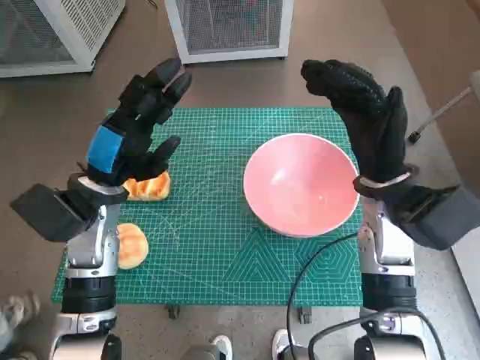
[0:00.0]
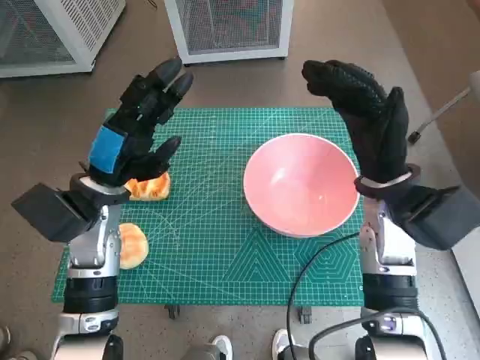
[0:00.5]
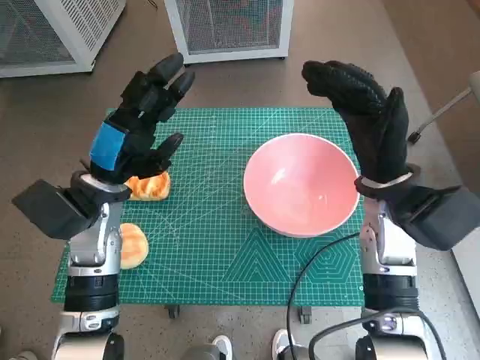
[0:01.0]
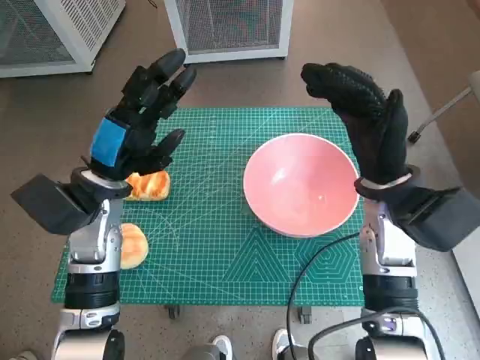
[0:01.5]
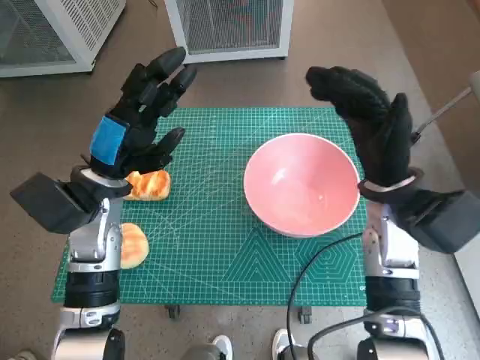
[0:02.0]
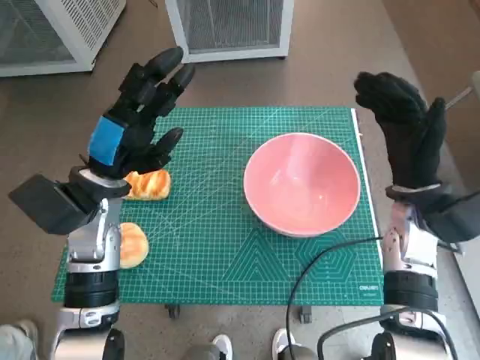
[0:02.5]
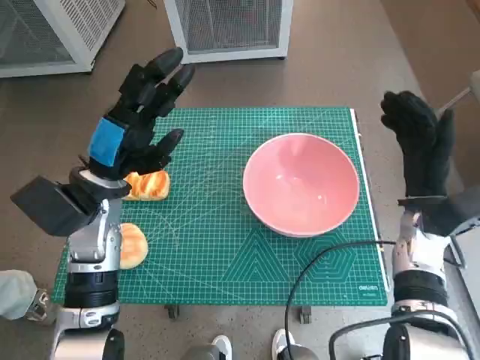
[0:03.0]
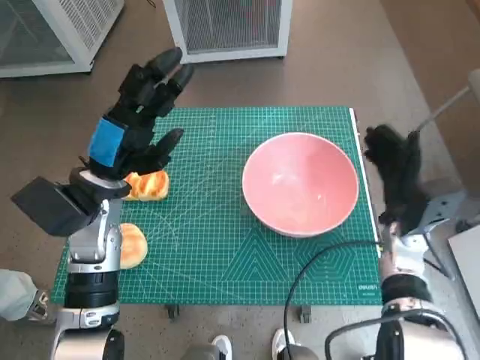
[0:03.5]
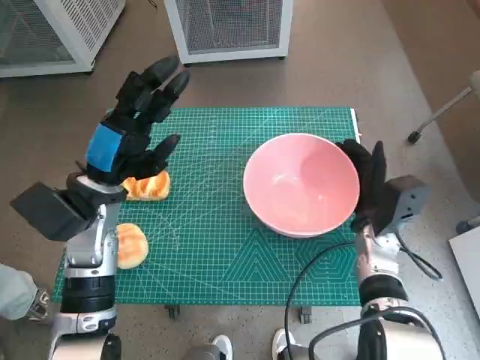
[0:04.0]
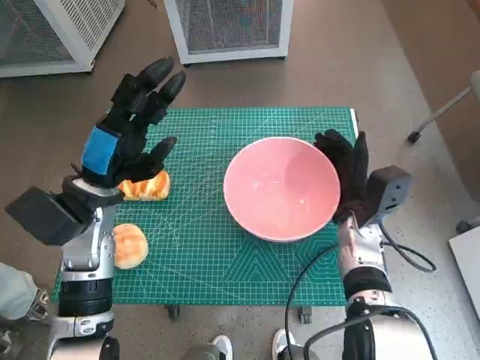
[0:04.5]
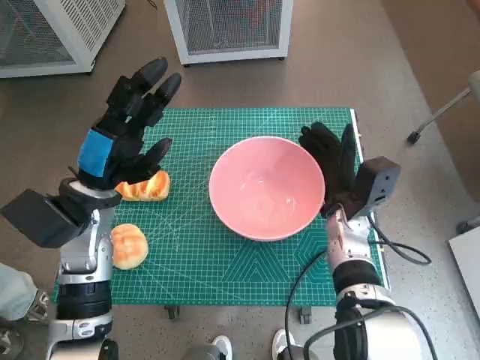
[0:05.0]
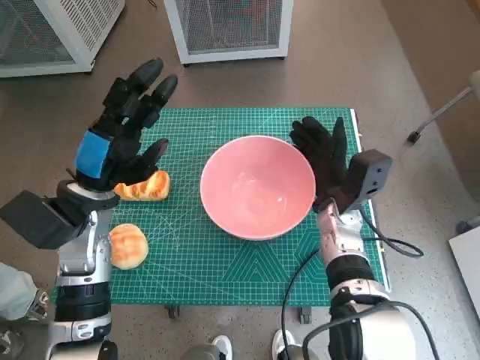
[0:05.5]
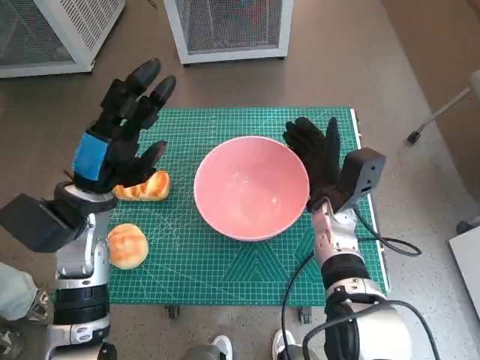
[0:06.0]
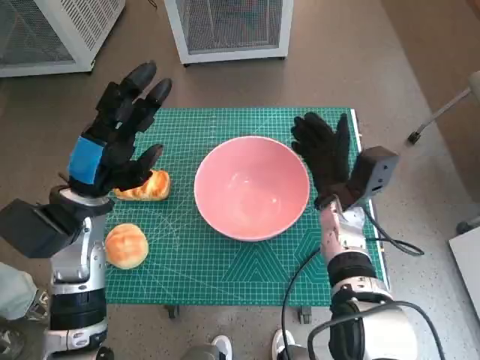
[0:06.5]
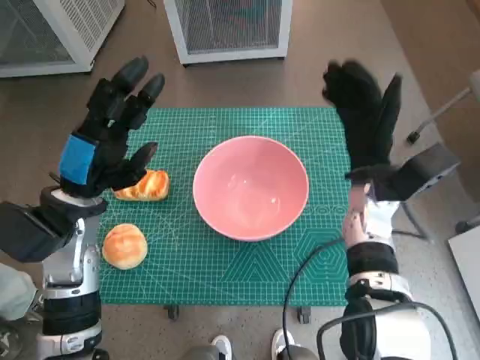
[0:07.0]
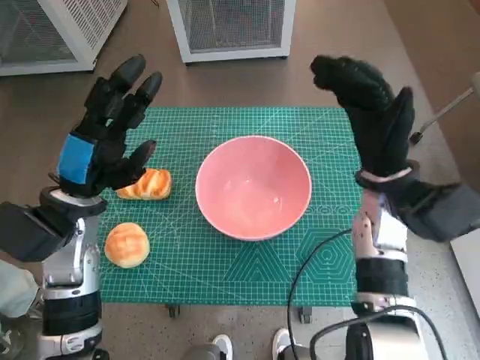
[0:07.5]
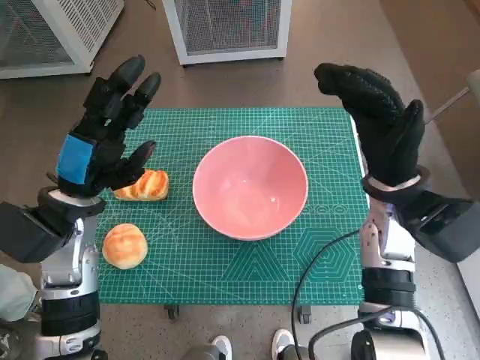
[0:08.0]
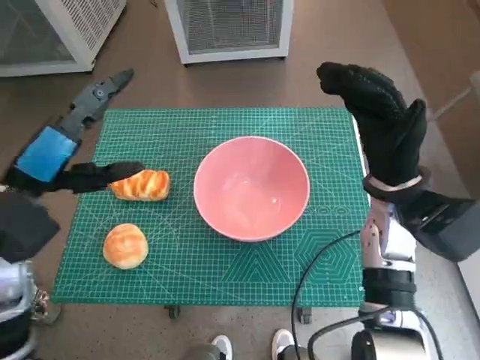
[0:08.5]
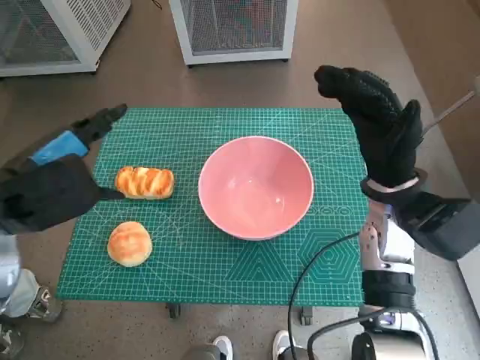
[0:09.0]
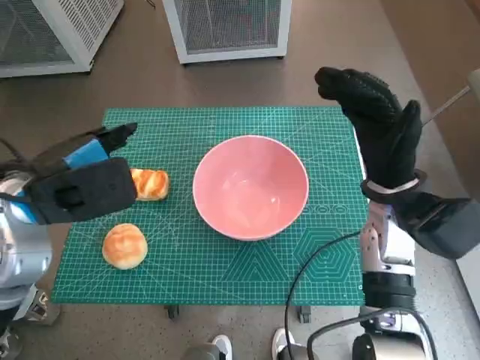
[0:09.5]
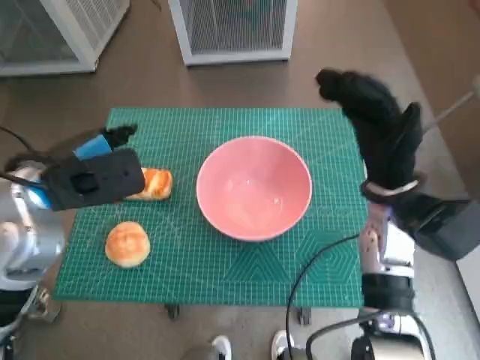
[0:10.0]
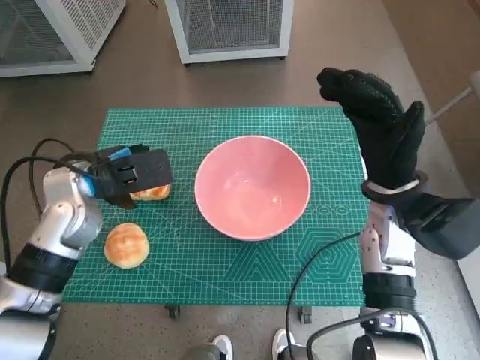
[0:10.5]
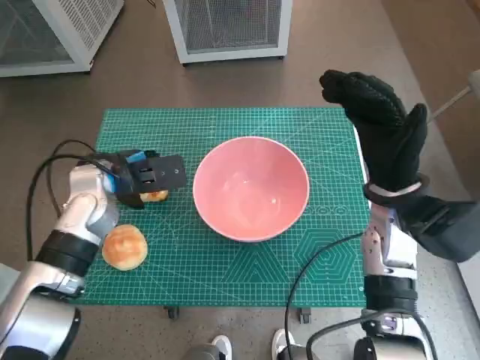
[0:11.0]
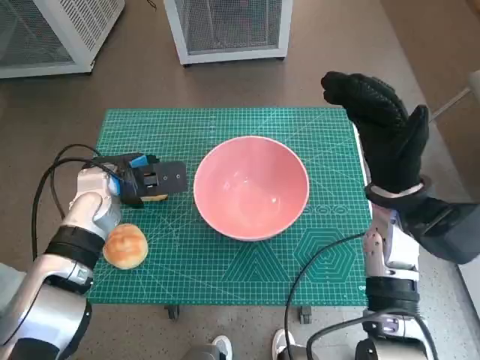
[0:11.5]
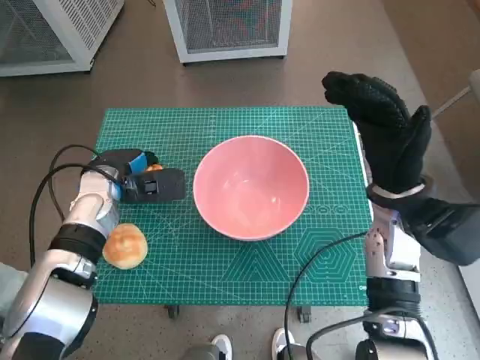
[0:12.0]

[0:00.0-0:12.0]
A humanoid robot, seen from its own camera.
Task of the whole recording: Push the bowl into the center of the table and put the bread into the bowl.
Step, 0:00.0 to 0:06.5: Move the pink bowl to the center of table with right hand.
Step, 0:07.0 to 0:11.5: Grasp the long bread with left hand.
0:02.0 to 0:04.0: The right hand heads downward, covering about 15 cm.
0:04.0 to 0:06.0: The right hand goes approximately 5 cm to the left.
0:06.0 to 0:08.0: The right hand moves upward and to the right, about 10 cm.
0:08.0 to 0:10.0: The left hand shifts some 5 cm upward.
0:10.0 to 0:12.0: The left hand is displaced downward and forward by approximately 15 cm.

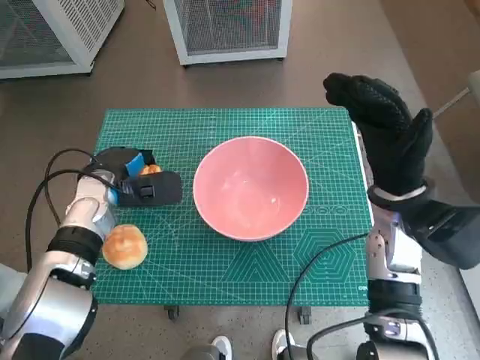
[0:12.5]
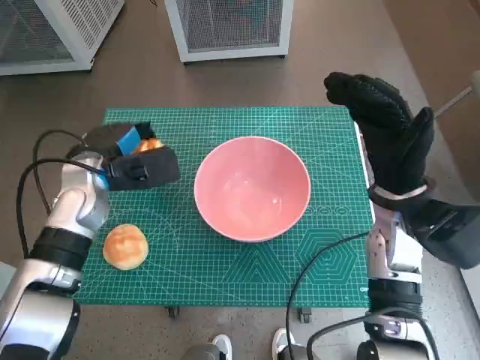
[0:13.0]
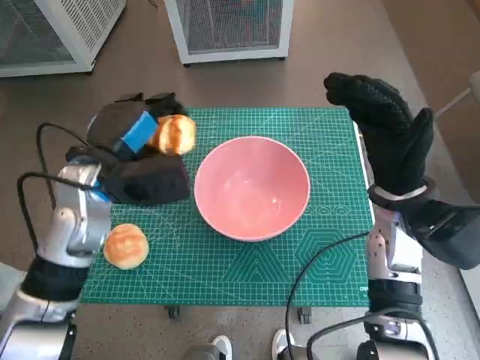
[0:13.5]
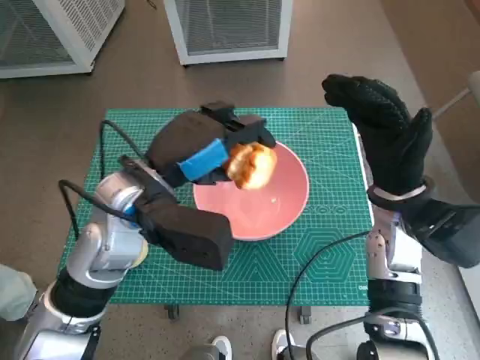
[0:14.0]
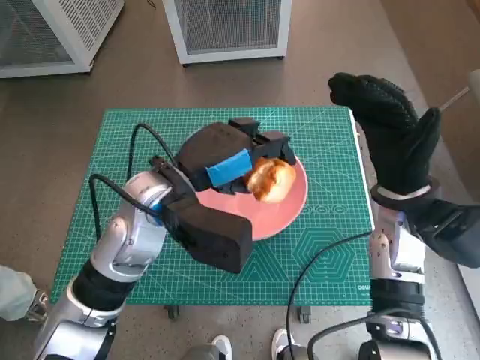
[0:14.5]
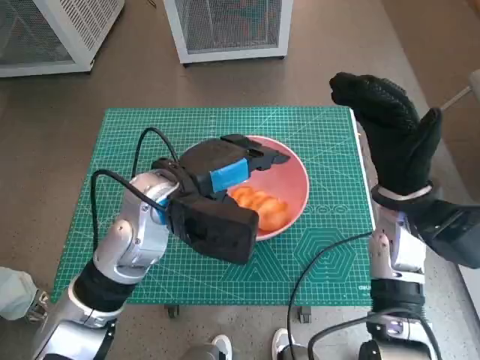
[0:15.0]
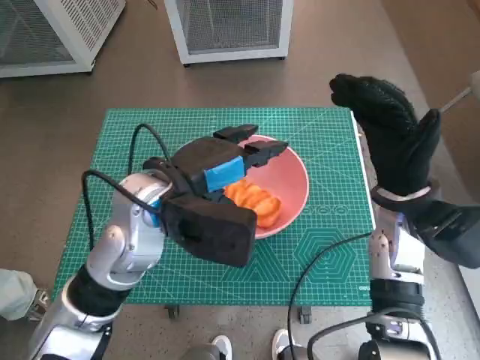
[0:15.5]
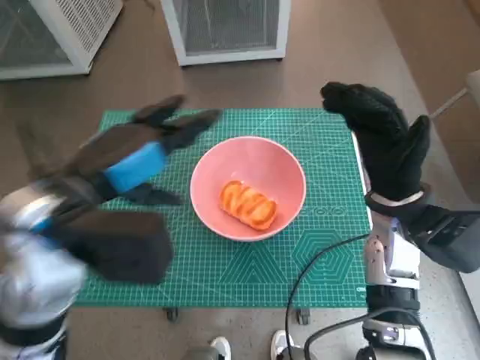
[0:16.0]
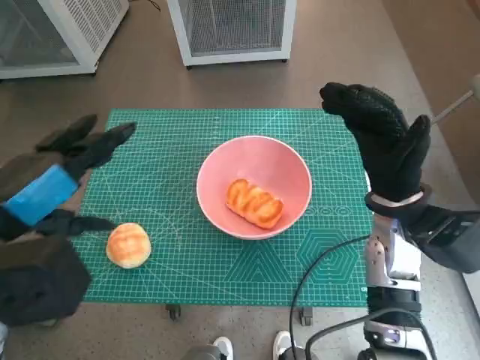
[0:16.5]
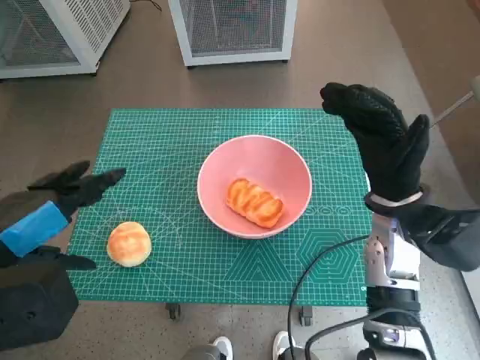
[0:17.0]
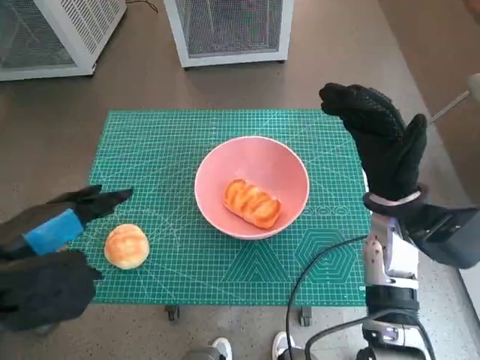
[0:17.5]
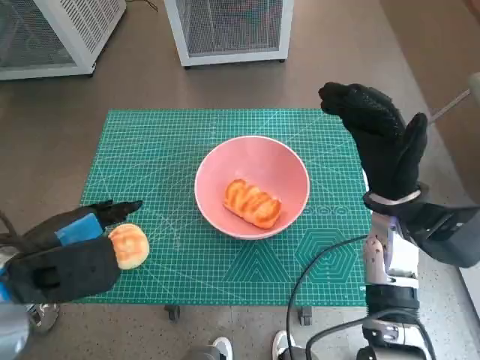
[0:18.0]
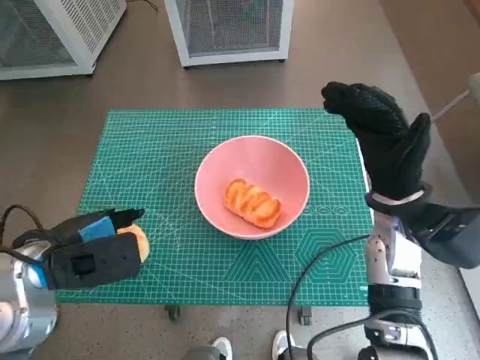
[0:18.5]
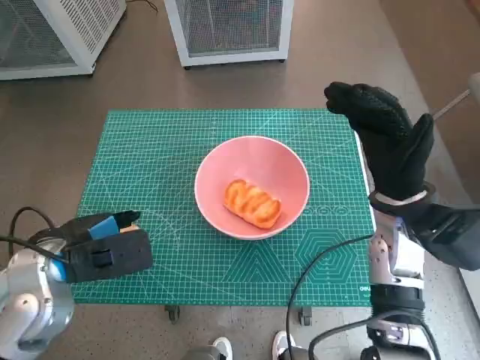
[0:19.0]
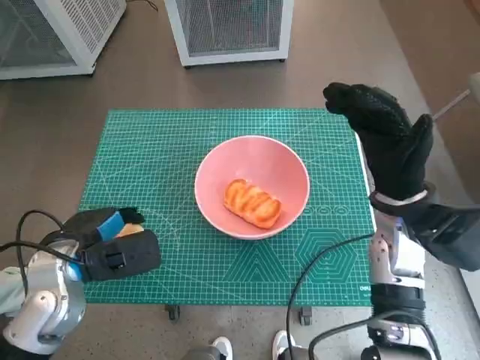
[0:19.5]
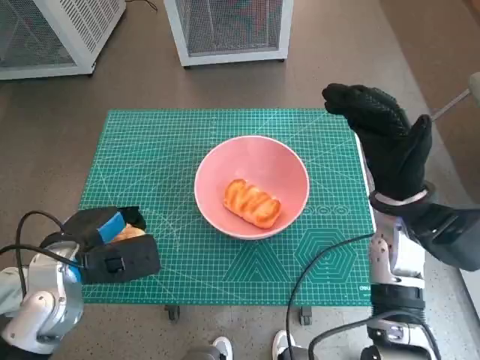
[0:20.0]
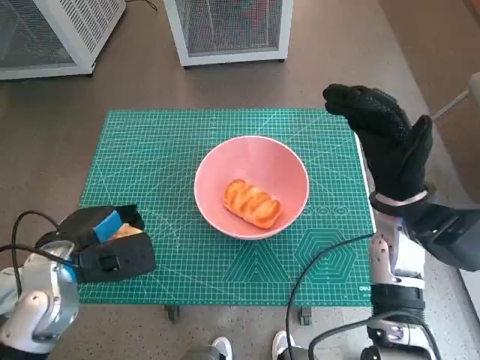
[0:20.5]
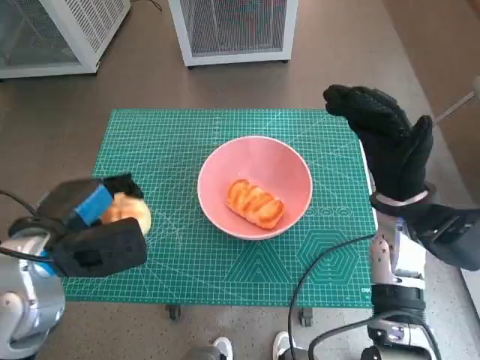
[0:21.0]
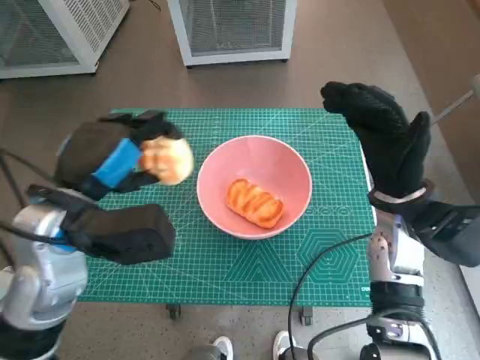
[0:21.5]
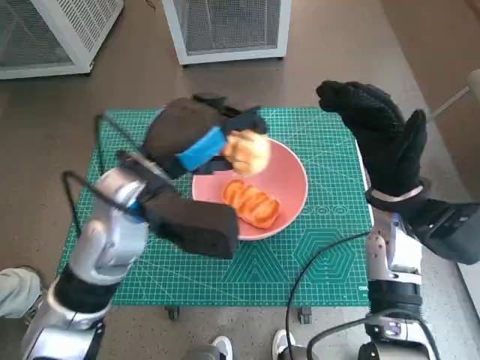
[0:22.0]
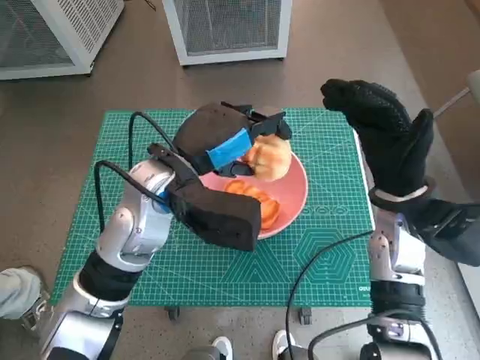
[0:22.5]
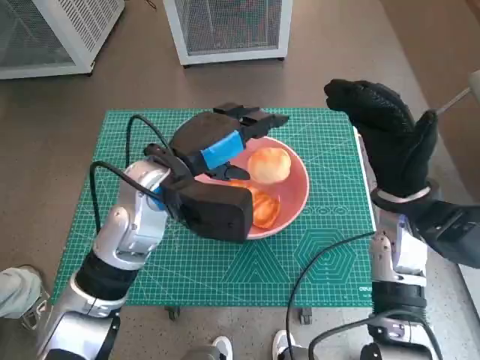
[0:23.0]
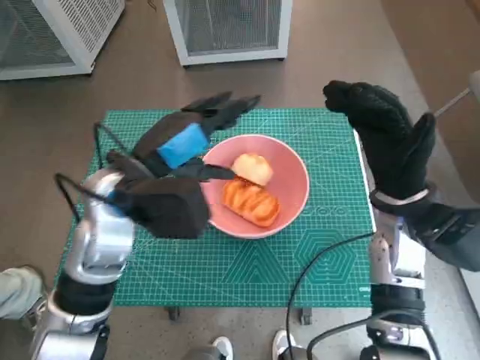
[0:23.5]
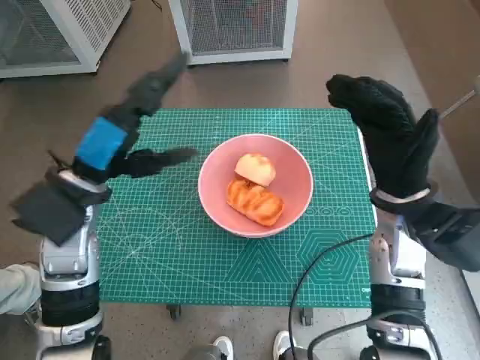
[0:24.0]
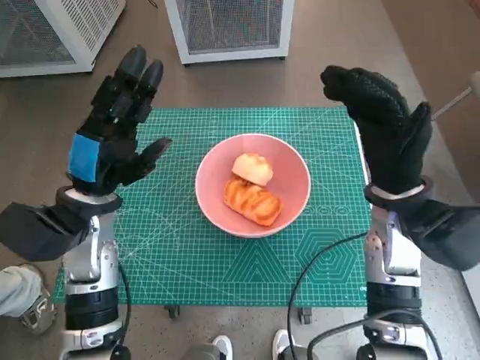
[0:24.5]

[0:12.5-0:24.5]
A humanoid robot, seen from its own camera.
Task of the whole recording: Push the bowl into the center of the table and put the bread into the bowl.
Step, 0:12.5 to 0:15.0: Place the long bread in pink bowl with left hand.
Step, 0:15.5 to 0:19.5: Grasp the round bread with left hand.
Step, 0:20.0 to 0:22.5: Place the round bread in pink bowl with left hand.
0:12.5 to 0:14.5: The left hand goes approximately 20 cm to the right, upward and backward.
0:14.5 to 0:16.5: The left hand shifts some 15 cm to the left, backward and upward.
0:16.5 to 0:18.5: The left hand heads downward, covering roughly 10 cm.
0:18.5 to 0:20.5: The left hand shifts approximately 5 cm downward.
0:20.5 to 0:22.5: The left hand moves to the right, upward and forward, some 20 cm.
0:22.5 to 0:24.5: The left hand shifts approximately 10 cm to the left and downward.

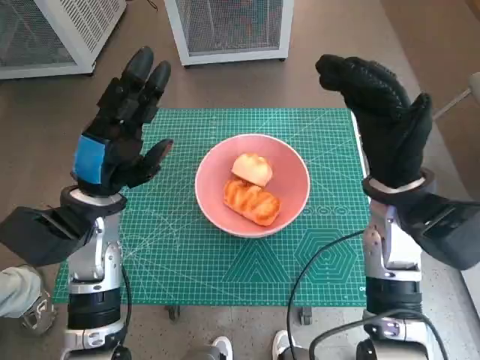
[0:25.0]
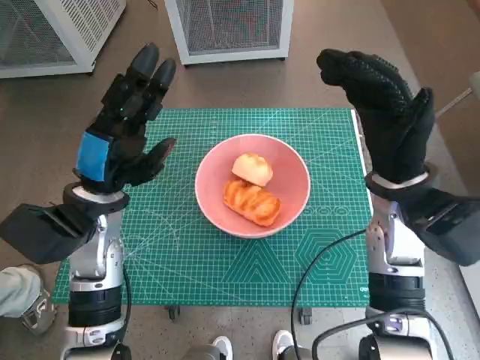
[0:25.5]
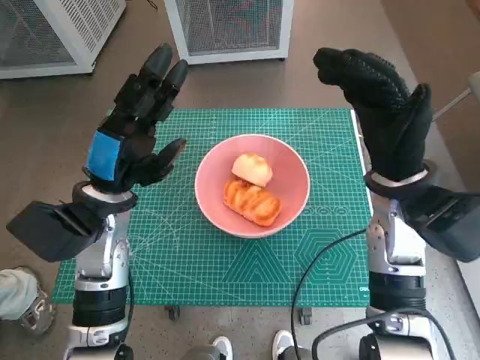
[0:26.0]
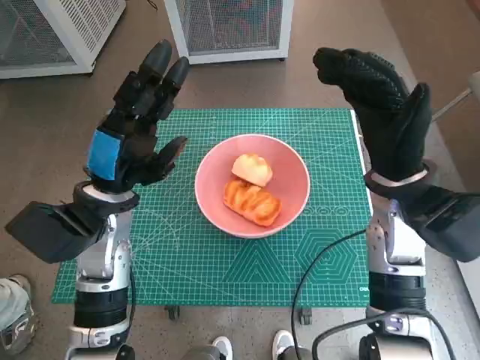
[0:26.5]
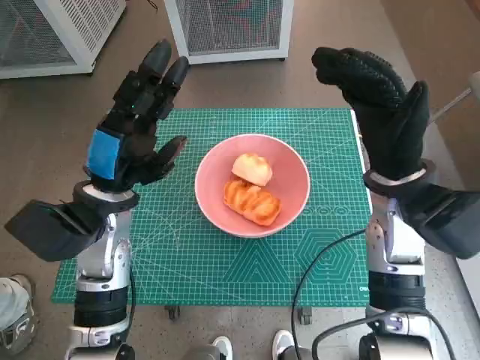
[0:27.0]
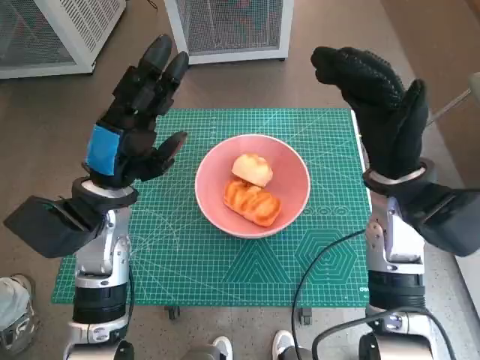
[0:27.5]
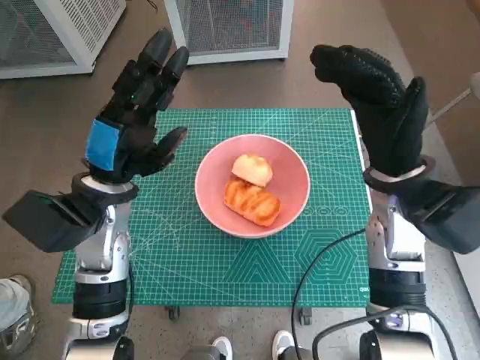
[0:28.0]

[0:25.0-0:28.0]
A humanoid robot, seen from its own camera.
Task of the whole recording: Push the bowl into the center of the table and put the bread into the bowl.
0:25.0 to 0:26.5: The hands move only a little.
0:26.5 to 0:28.0: Both hands stay about where they are.
